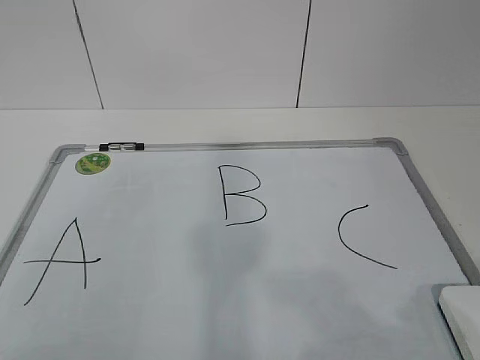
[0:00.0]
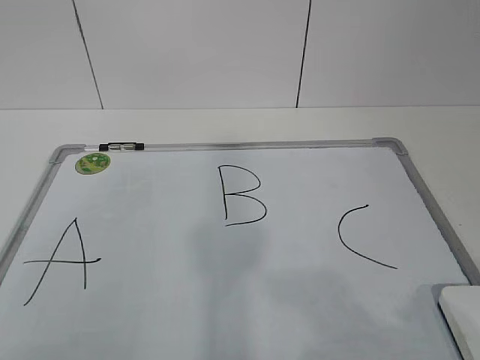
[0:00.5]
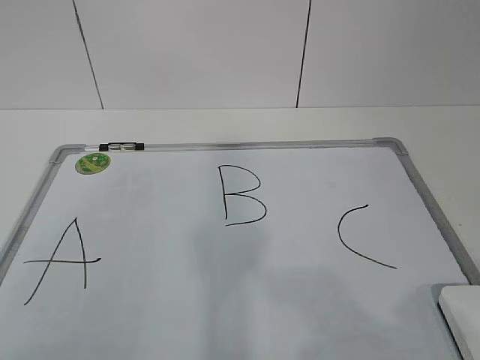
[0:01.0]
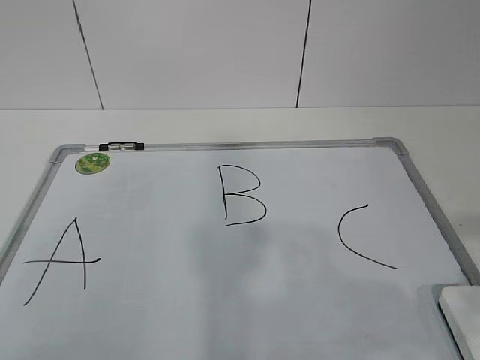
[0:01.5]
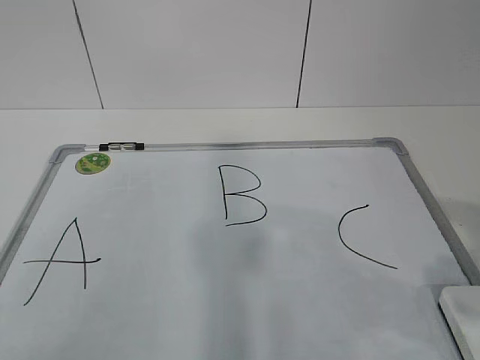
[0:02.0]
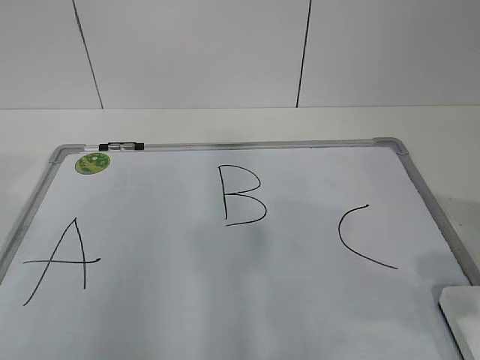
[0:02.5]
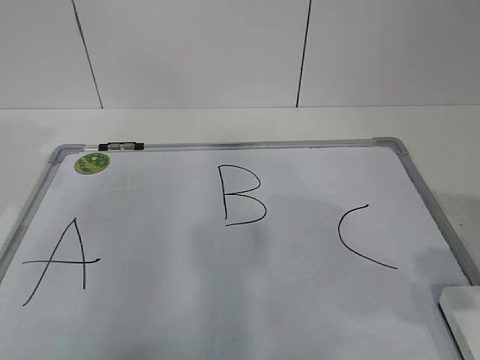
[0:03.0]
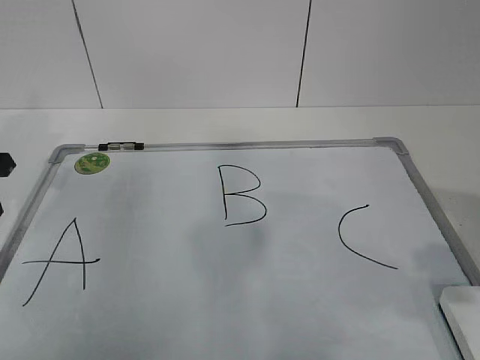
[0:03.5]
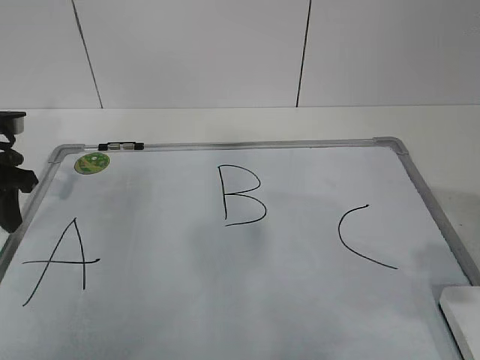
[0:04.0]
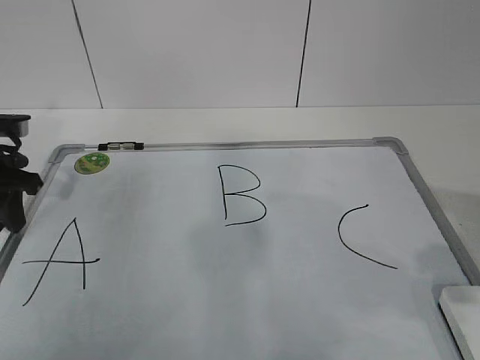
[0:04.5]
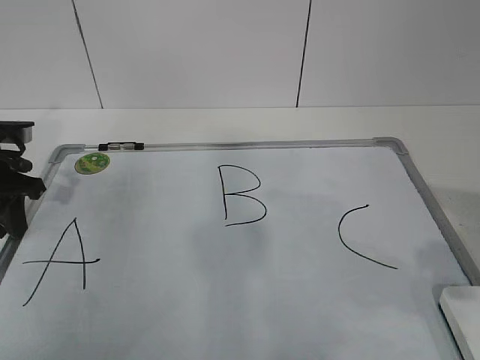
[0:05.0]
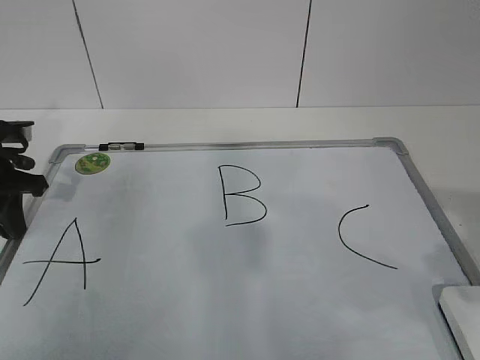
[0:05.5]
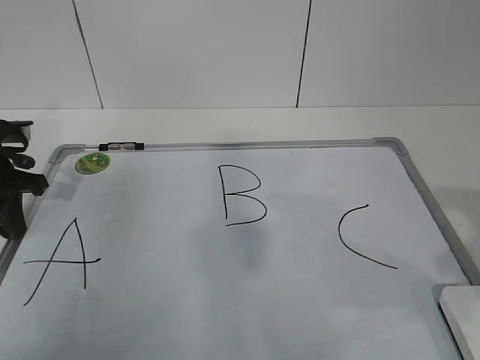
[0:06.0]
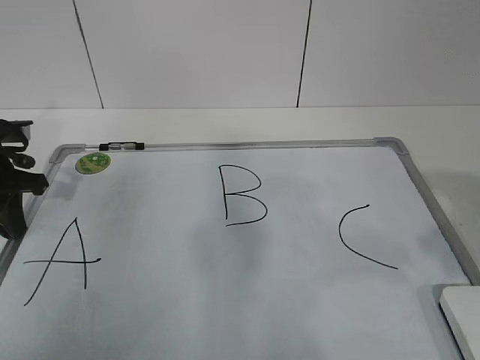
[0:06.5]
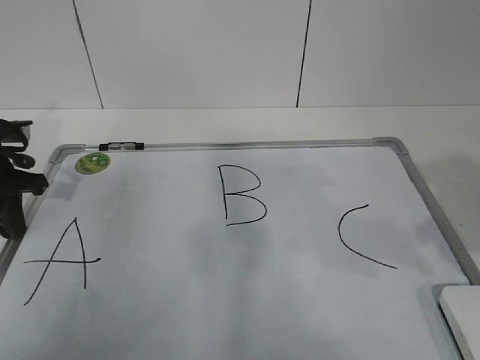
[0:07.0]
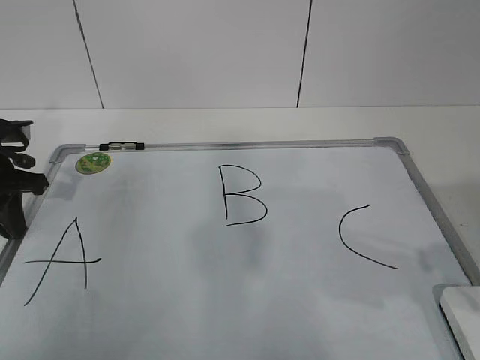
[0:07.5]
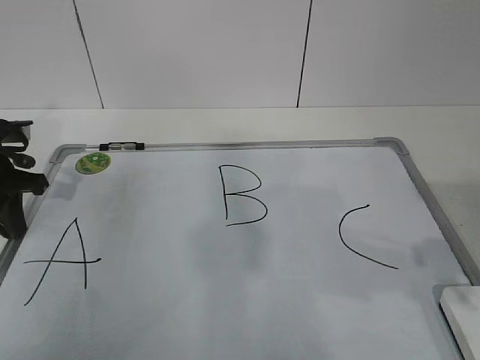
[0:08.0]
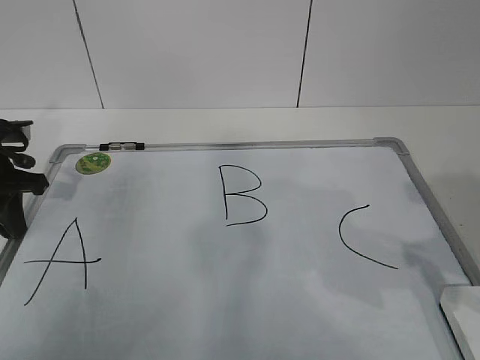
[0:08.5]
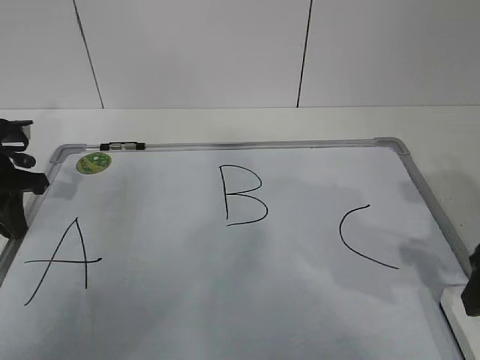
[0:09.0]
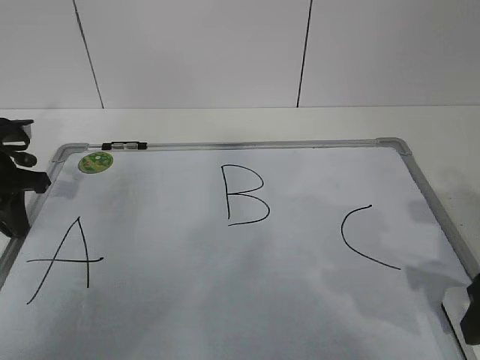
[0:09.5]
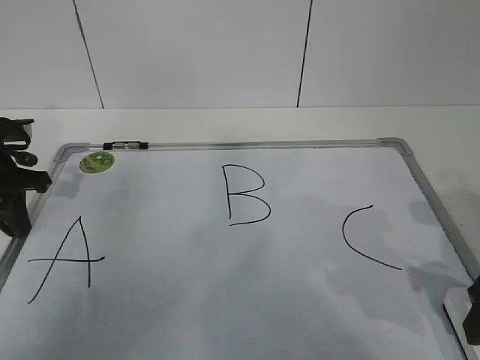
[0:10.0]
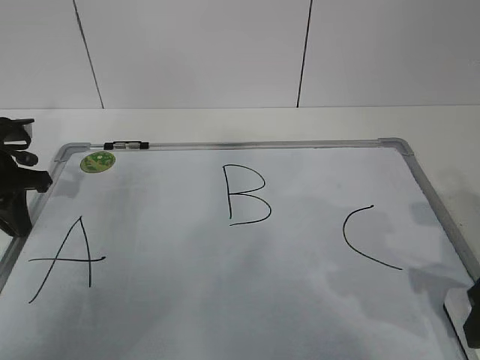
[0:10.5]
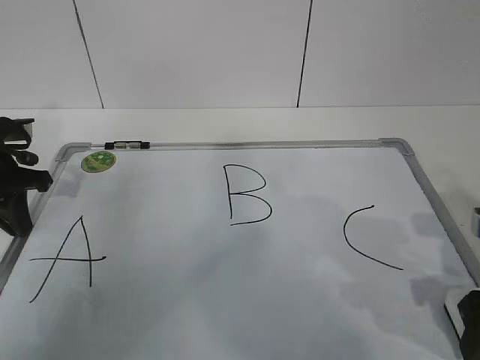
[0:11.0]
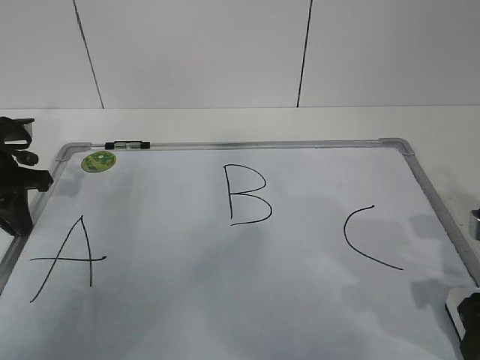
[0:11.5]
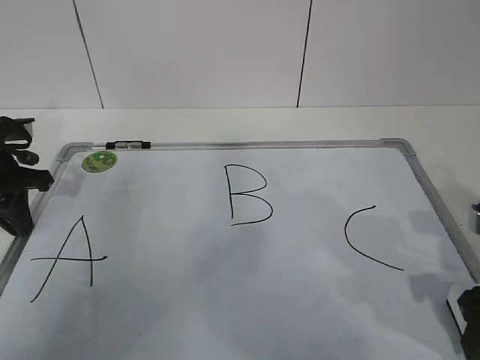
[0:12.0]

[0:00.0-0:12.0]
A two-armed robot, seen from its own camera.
Task of the whole recording: pick up the eraser on the blackboard and erase the letter "B".
Step, 0:00.0 to 0:04.5: Hold the drawing board steady with your left hand.
Step, 0:05.0 to 0:09.5: Grab the eraser with your right hand.
0:02.0 to 0:04.0: The left gripper shifts roughly 35 cm forward.
0:04.0 to 0:06.0: The left gripper closes up.
0:08.0 to 0:10.0: The right gripper moves downward, roughly 5 cm, and opens up.
0:10.0 to 0:12.0: The right gripper closes.

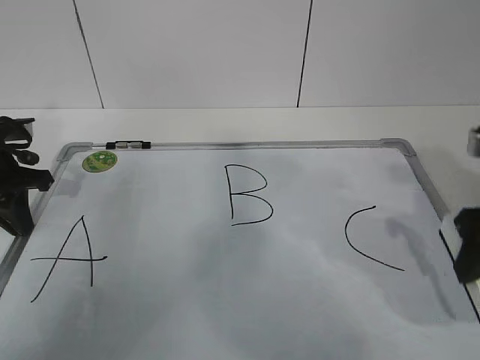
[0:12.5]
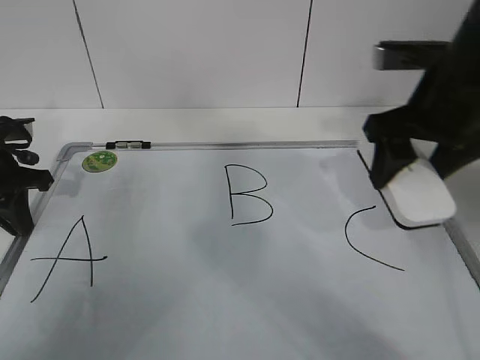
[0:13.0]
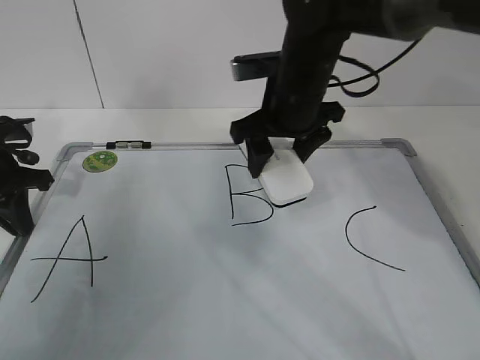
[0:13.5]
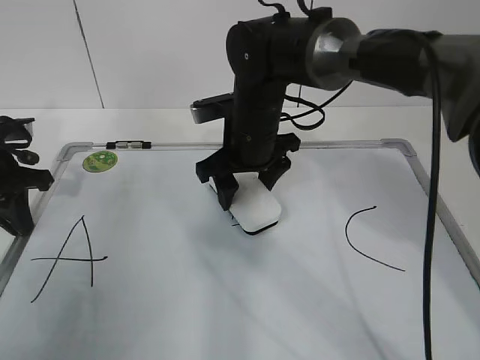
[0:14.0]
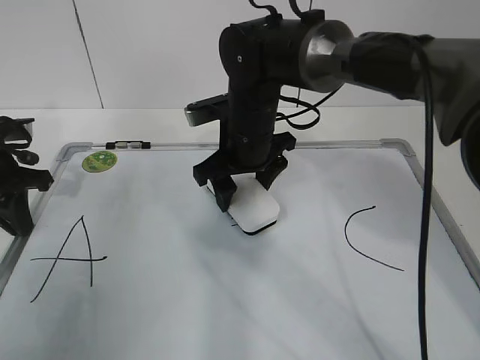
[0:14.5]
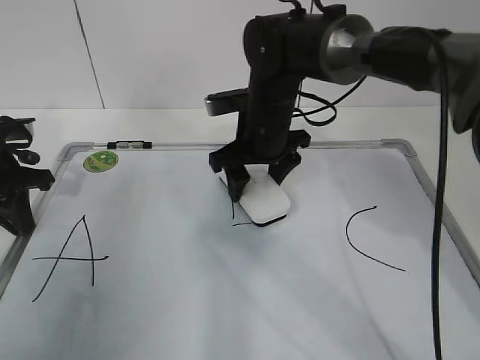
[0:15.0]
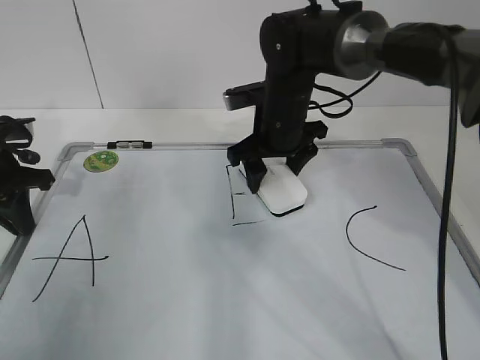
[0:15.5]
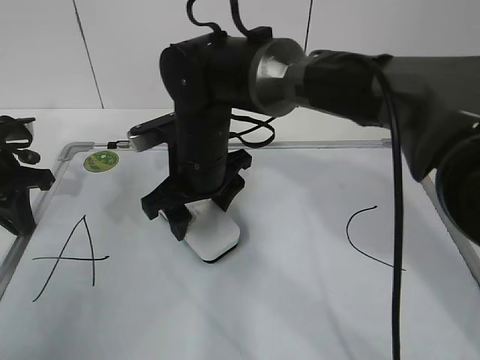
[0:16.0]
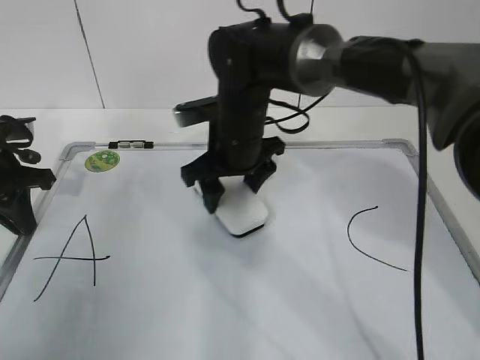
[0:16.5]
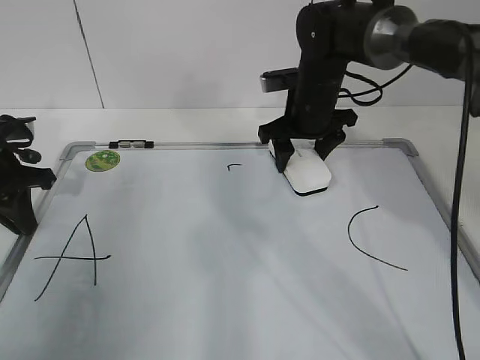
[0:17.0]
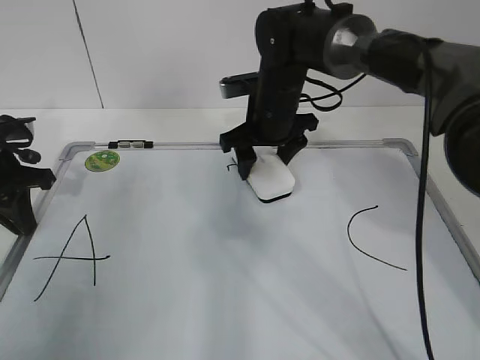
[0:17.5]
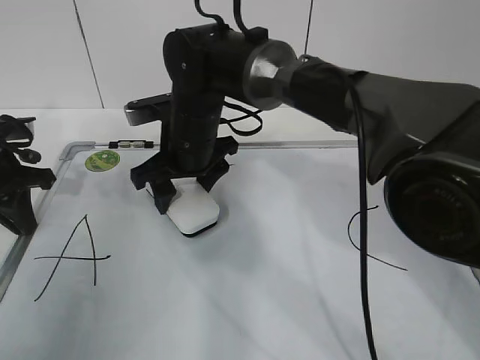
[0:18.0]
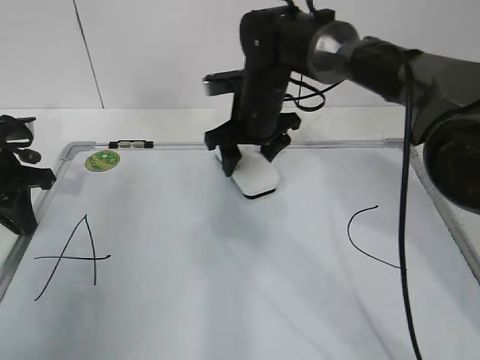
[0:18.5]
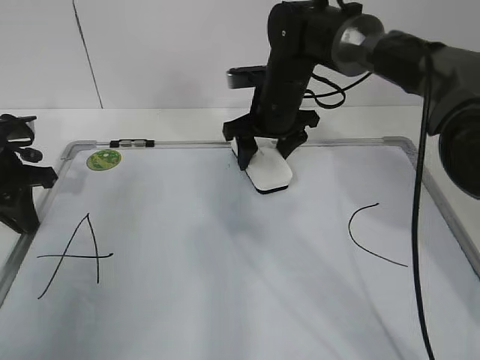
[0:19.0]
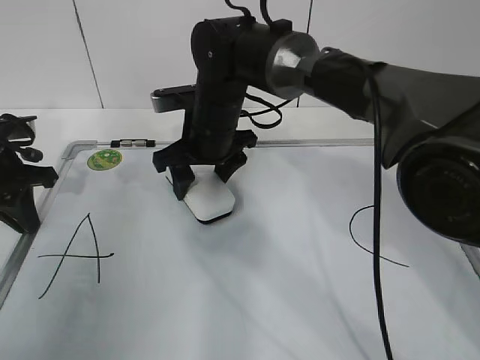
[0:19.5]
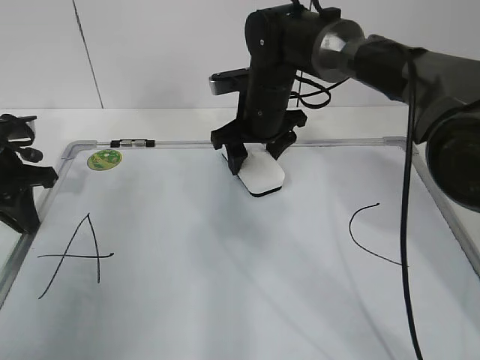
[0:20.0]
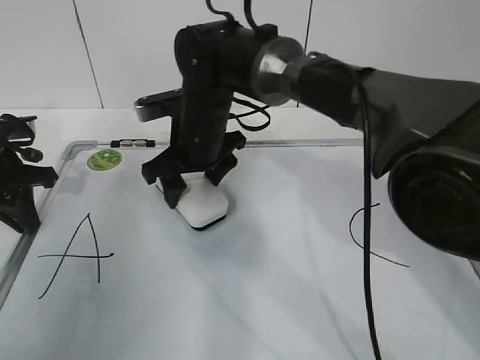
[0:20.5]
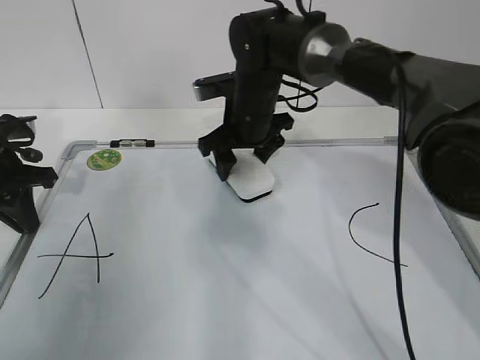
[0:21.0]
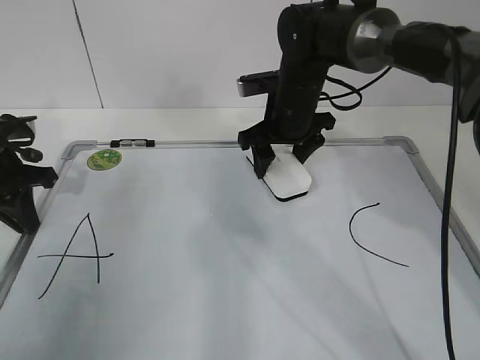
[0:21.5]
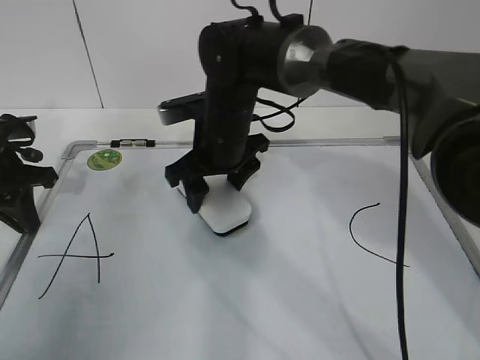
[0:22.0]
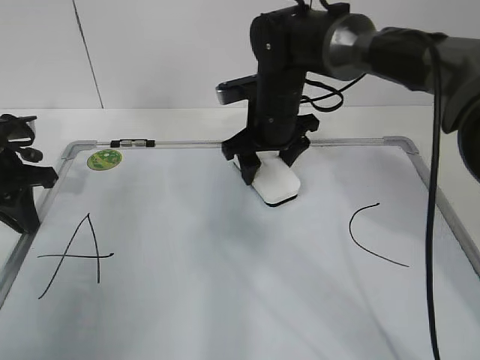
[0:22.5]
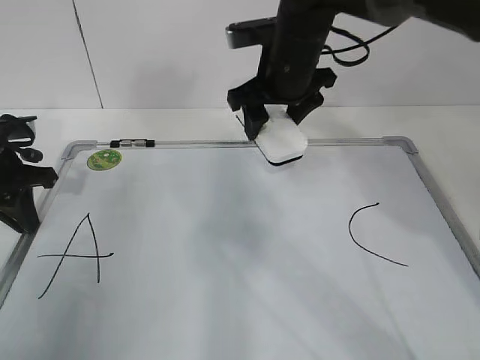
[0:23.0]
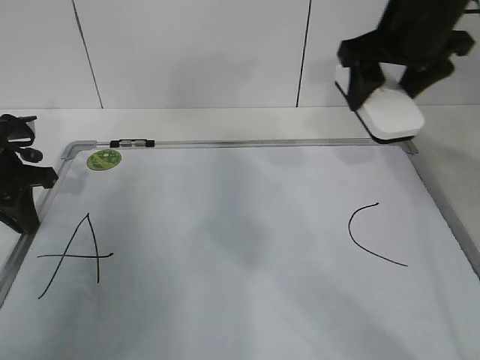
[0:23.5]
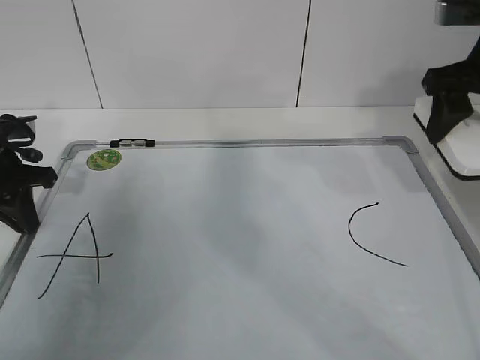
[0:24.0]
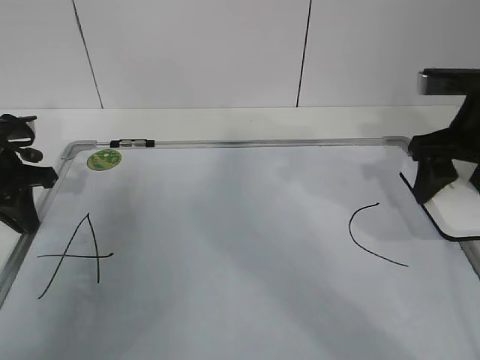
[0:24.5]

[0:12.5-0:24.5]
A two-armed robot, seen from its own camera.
Task of the whole recording: pick up the eraser on the blackboard and erase the letter "B".
Step, 0:12.5 to 0:18.5: Erase the letter B with your right hand.
Step, 0:19.0 to 0:22.5: Put down the eraser with your right hand.
0:12.5 to 0:14.5: The right gripper shifts some 30 cm to the left and forward.
0:14.5 to 0:16.5: The right gripper swings left and right, roughly 10 cm each way, with 2 reversals.
0:16.5 to 0:18.5: The right gripper swings left and right, about 15 cm each way, with 2 reversals.
0:18.5 to 0:20.5: The right gripper goes left and right, about 10 cm each way, reversing 2 times.
0:20.5 to 0:22.5: The right gripper goes left and right, roughly 10 cm each way, reversing 2 times.
0:22.5 to 0:24.5: The right gripper is displaced to the right and backward by about 25 cm.

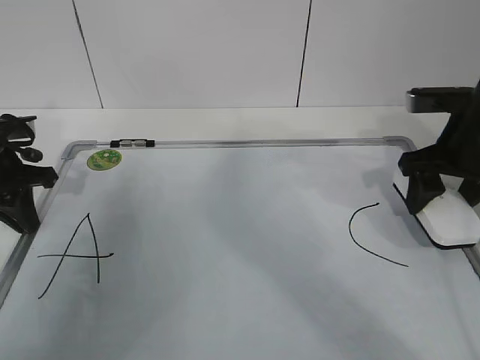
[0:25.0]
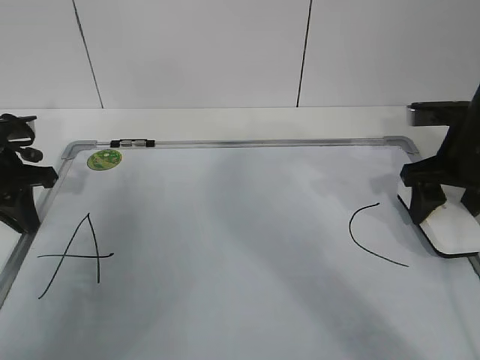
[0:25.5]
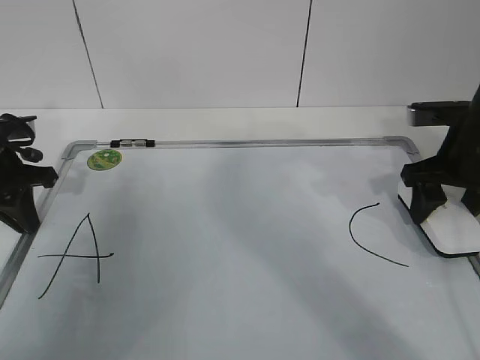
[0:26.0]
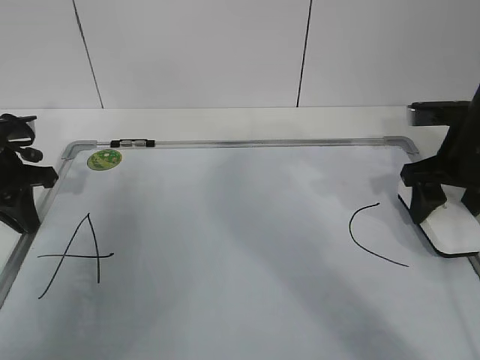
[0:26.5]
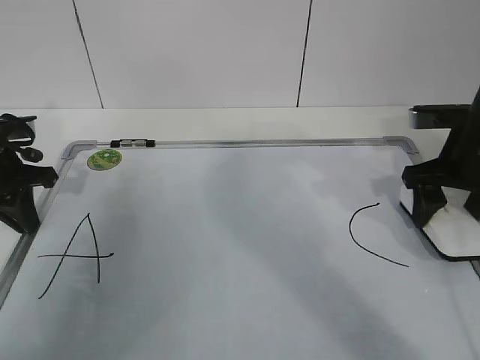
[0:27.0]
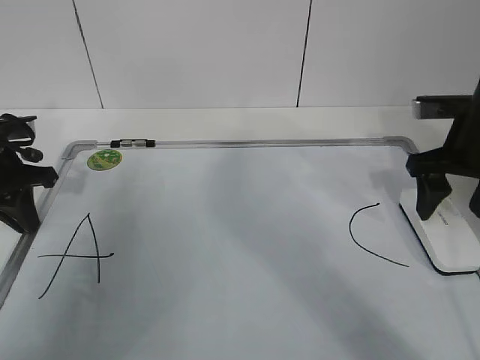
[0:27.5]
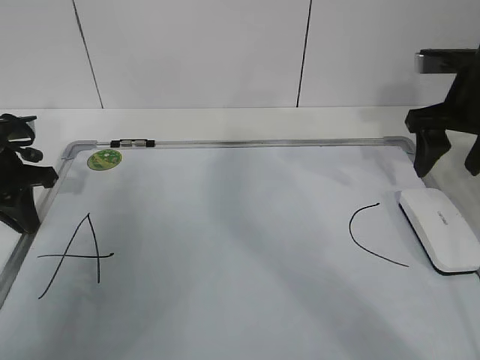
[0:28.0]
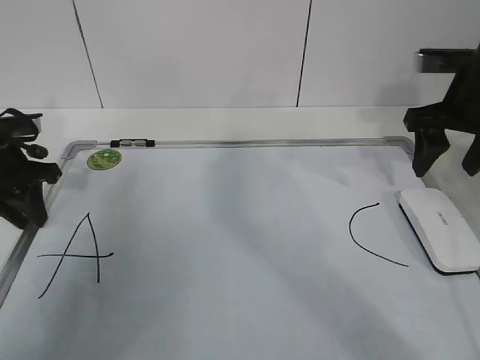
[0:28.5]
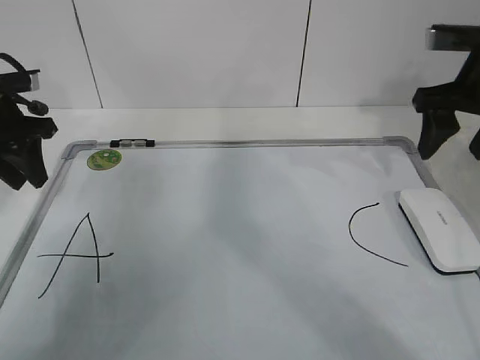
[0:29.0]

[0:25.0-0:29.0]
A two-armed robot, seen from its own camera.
Task of the whole recording: pick up the eraser on the blackboard and erase the letter "B".
0:25.0 to 0:27.0: The right gripper opens.
0:27.0 to 0:29.0: The two grippers go approximately 5 cm upward. The right gripper opens, then closes again; the left gripper opens.
